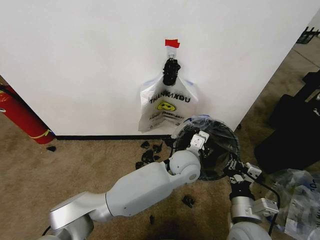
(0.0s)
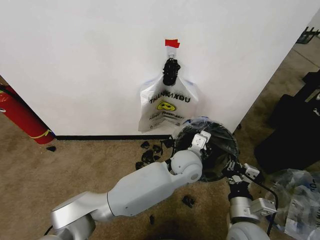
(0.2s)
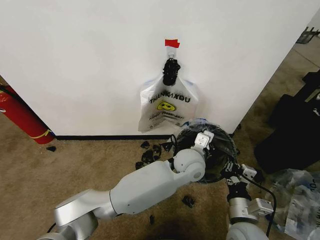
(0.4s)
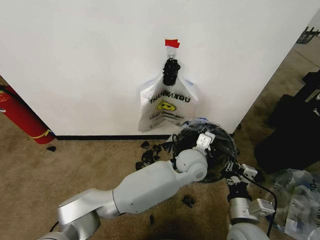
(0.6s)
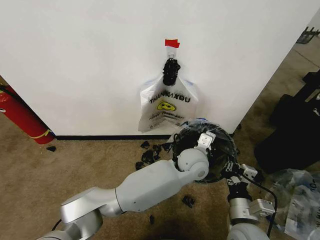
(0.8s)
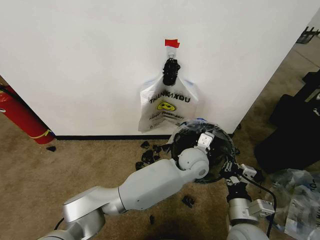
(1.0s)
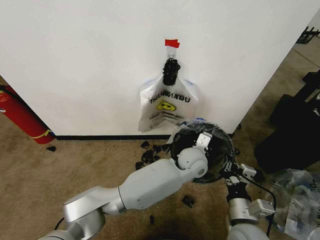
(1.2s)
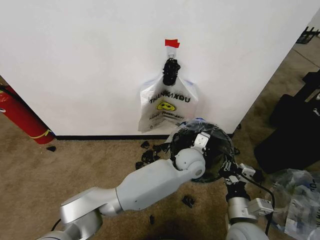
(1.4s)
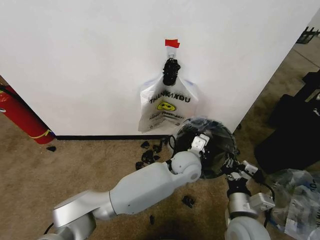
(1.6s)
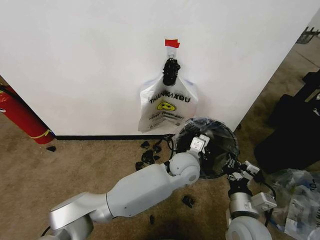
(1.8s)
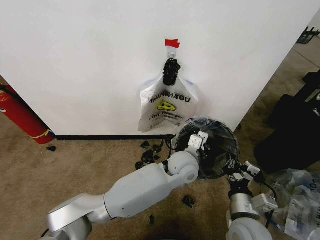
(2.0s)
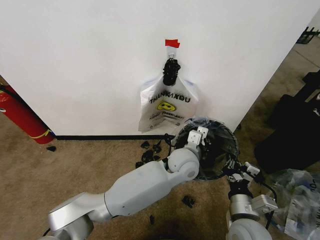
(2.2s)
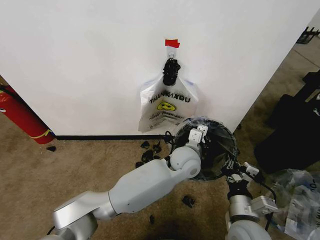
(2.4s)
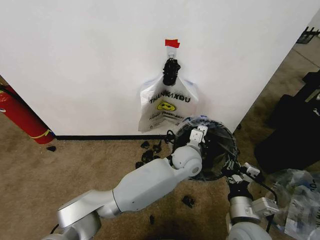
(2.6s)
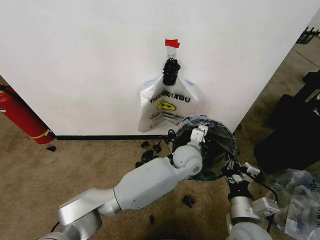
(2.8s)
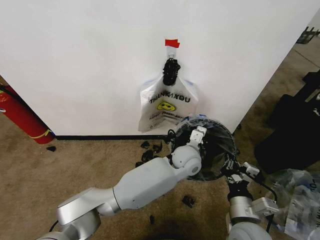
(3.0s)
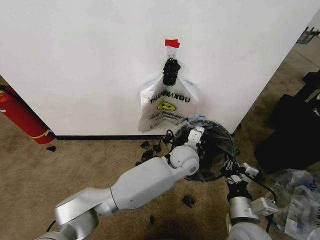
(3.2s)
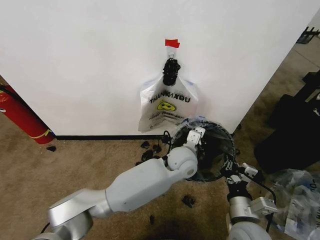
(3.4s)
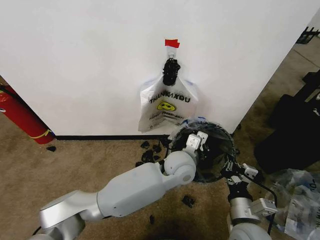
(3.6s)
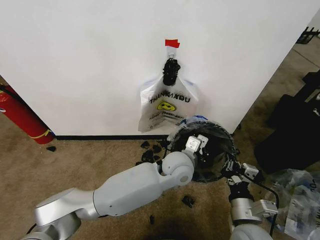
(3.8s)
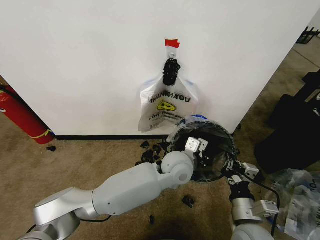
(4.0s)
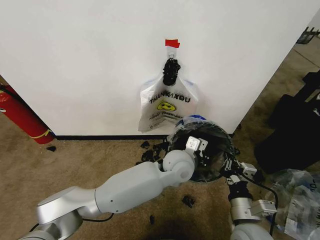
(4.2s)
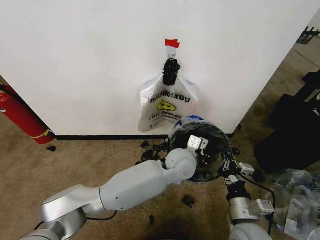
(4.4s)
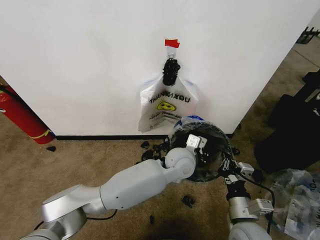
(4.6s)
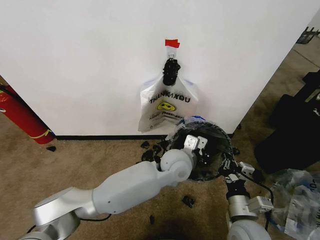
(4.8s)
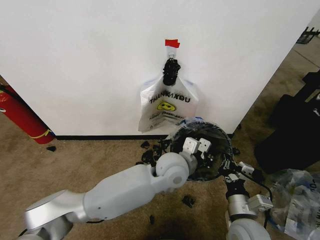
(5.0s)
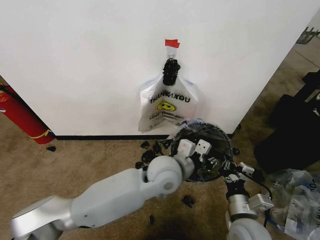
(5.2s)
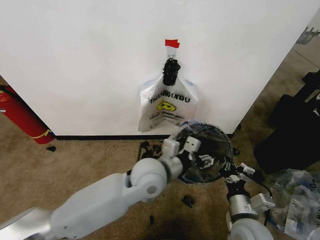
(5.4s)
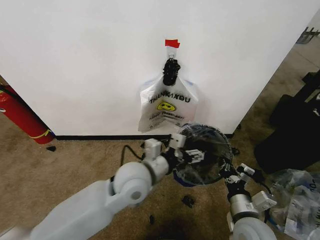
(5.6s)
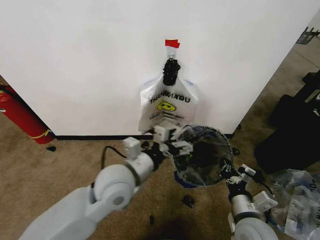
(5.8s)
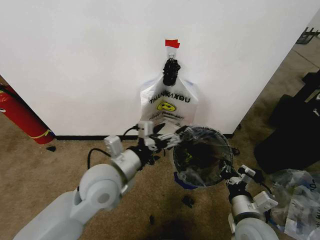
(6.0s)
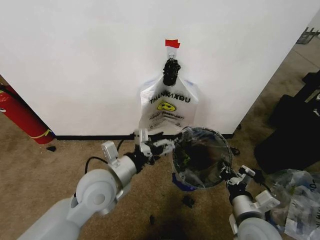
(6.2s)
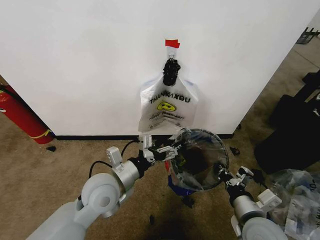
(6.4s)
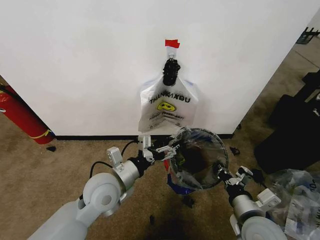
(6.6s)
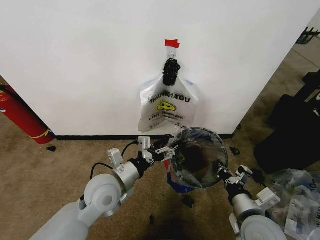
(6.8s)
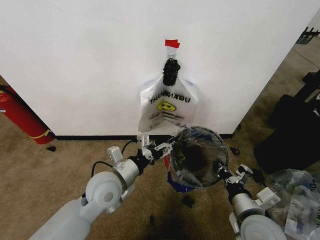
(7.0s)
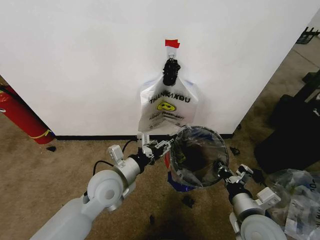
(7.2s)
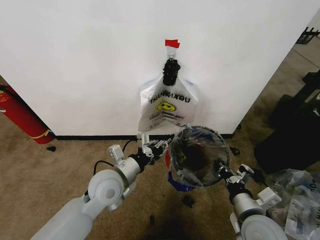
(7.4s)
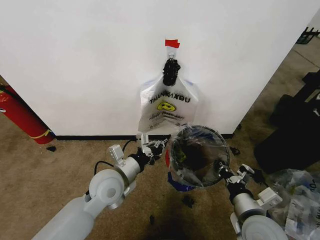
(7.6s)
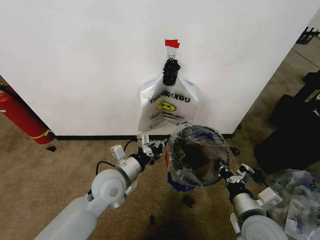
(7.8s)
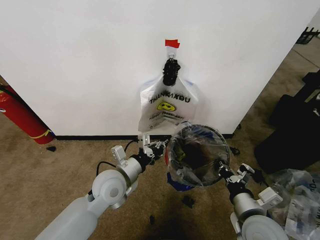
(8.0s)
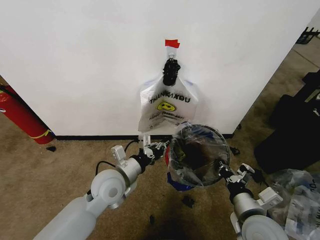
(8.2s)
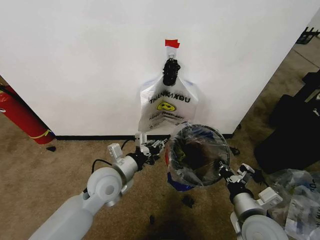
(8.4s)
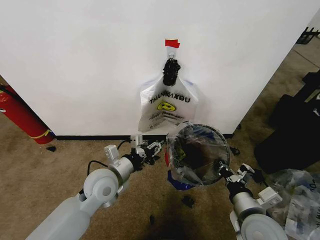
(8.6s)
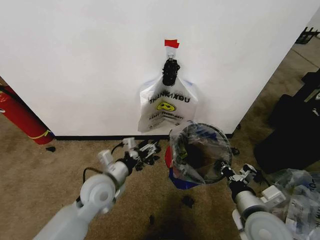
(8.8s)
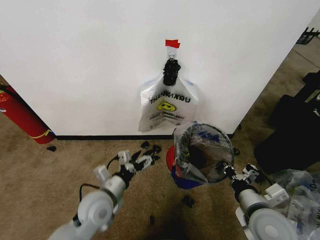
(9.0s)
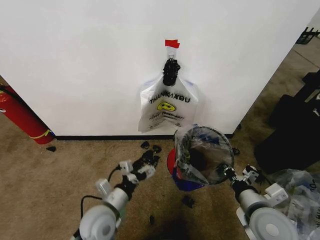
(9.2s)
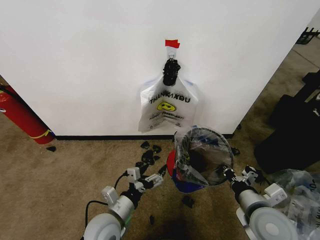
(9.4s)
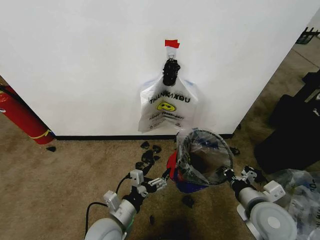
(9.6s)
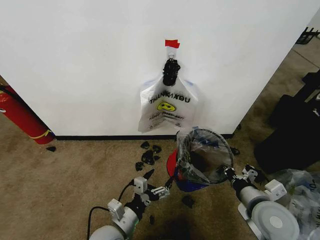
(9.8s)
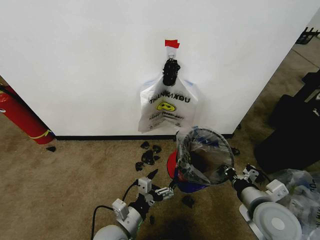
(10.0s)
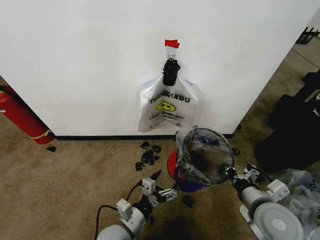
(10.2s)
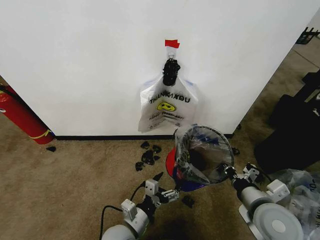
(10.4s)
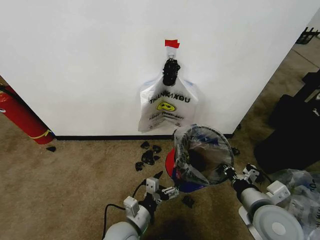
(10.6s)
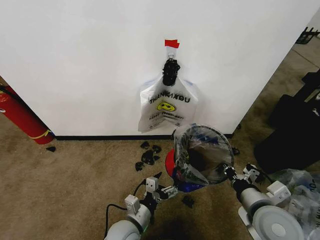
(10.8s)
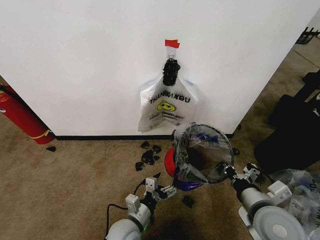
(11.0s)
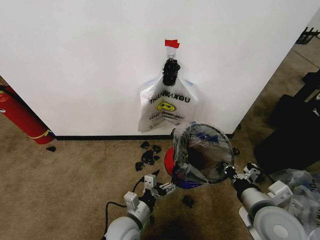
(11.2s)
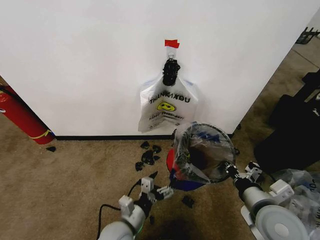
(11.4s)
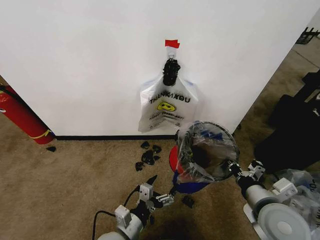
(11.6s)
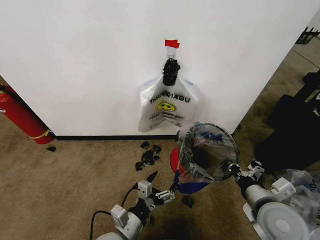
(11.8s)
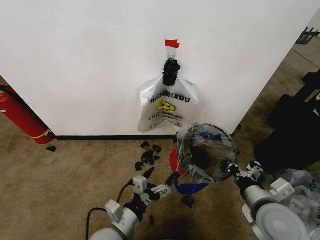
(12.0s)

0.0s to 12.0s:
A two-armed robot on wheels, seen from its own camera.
Task of the whole recording: Pick up the garbage bag from the wall and place it over the trash bin.
0.0s to 3.0s: The grippers make only small movements.
4.4s to 6.0s: The left gripper is displaced to the left and backward by roughly 25 cm, and opens its fingers.
6.0s to 7.6s: The left gripper heads downward, covering roughly 5 cm, and closes up.
7.6s to 9.0s: The left gripper is displaced downward by about 5 cm, and opens its fingers.
9.0s to 10.4s: The left gripper moves backward, to the right and downward, some 15 cm.
10.4s to 12.0s: The grippers move only a little.

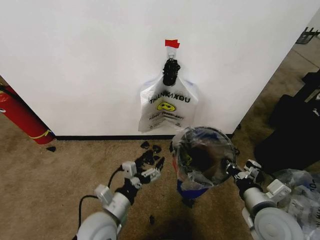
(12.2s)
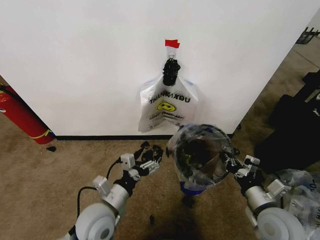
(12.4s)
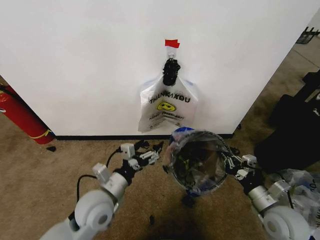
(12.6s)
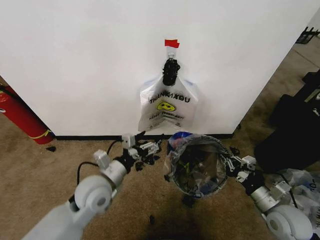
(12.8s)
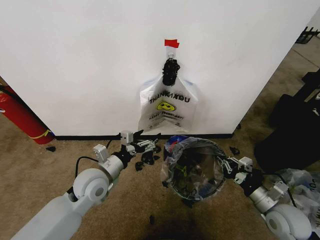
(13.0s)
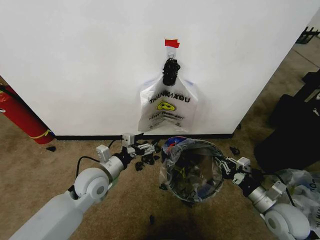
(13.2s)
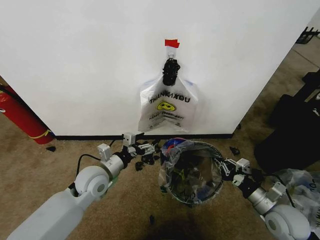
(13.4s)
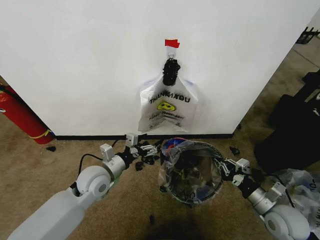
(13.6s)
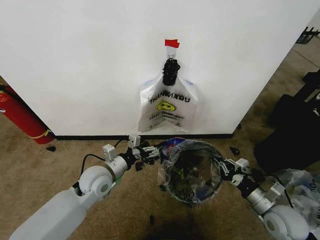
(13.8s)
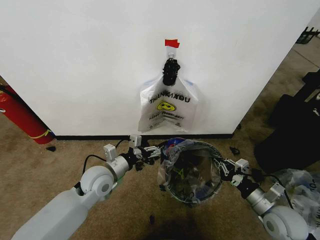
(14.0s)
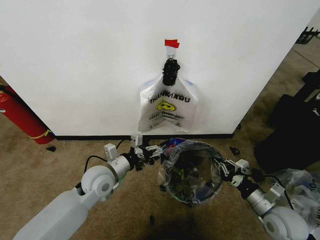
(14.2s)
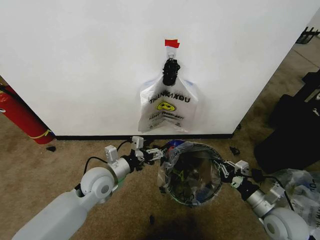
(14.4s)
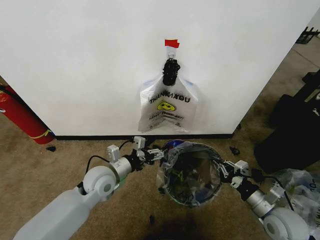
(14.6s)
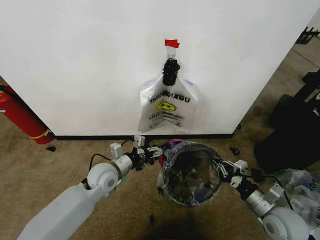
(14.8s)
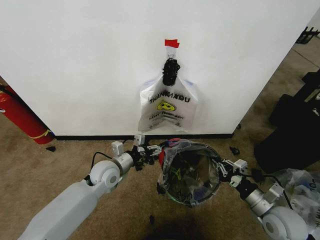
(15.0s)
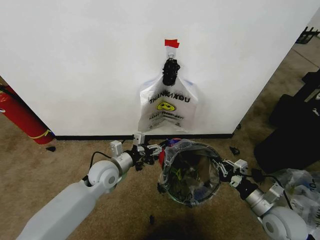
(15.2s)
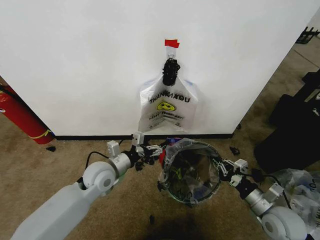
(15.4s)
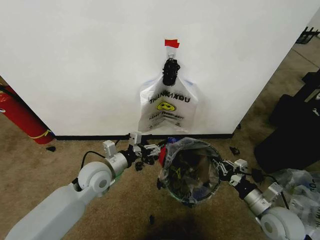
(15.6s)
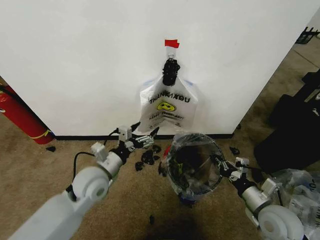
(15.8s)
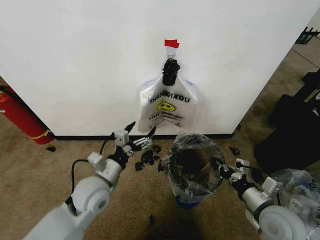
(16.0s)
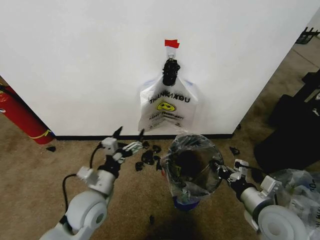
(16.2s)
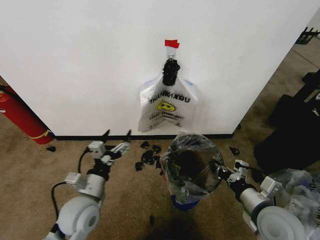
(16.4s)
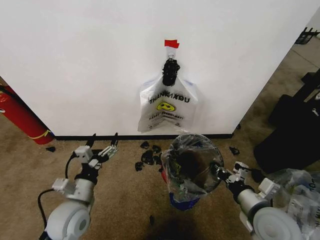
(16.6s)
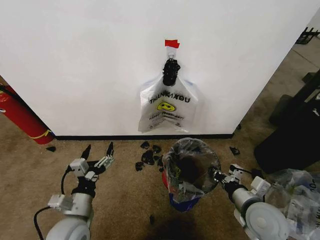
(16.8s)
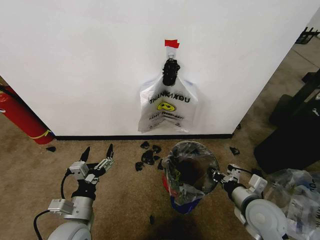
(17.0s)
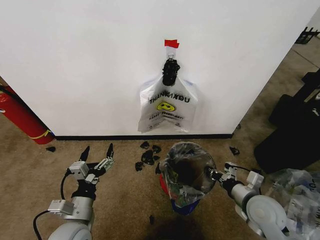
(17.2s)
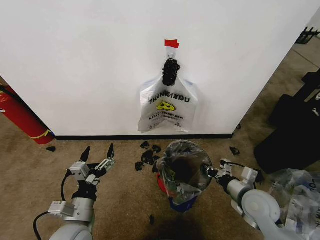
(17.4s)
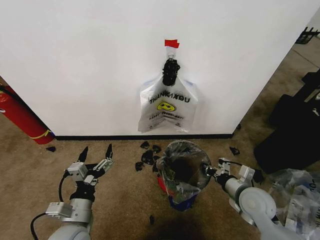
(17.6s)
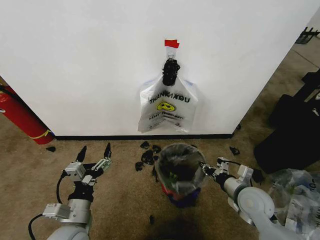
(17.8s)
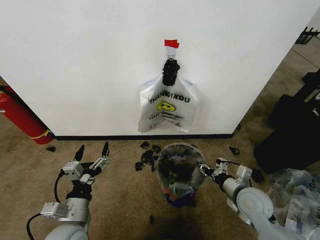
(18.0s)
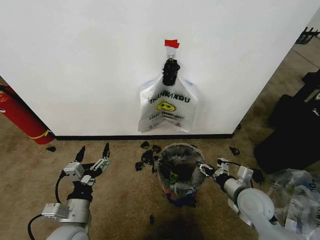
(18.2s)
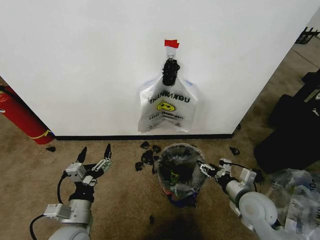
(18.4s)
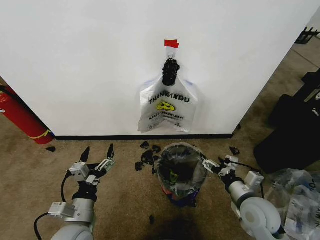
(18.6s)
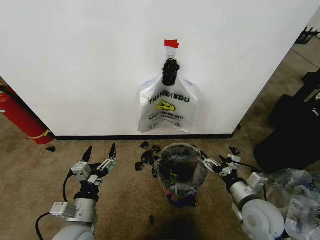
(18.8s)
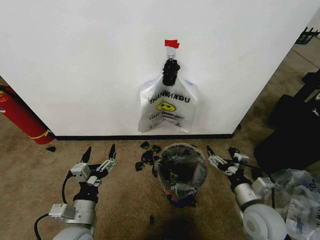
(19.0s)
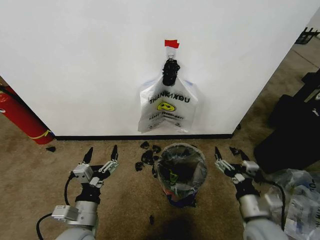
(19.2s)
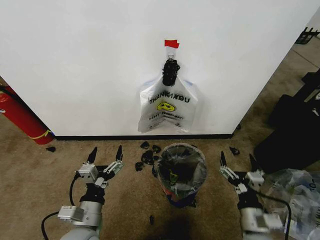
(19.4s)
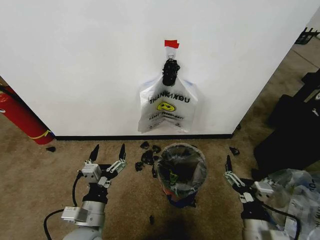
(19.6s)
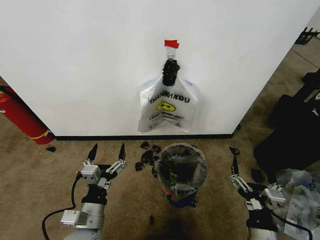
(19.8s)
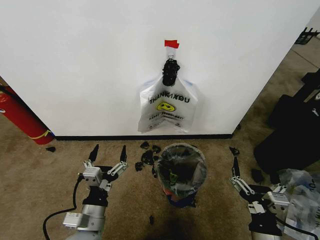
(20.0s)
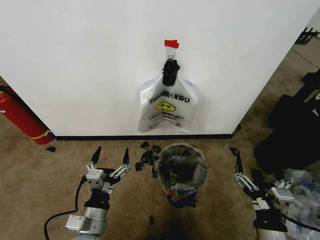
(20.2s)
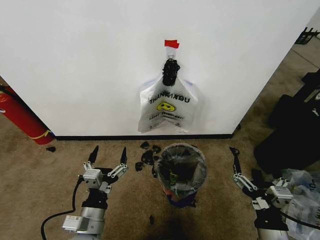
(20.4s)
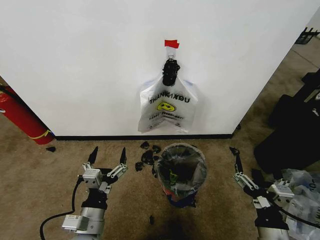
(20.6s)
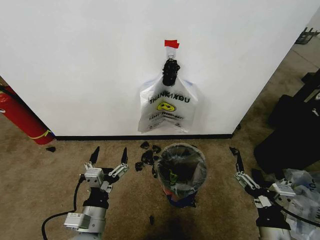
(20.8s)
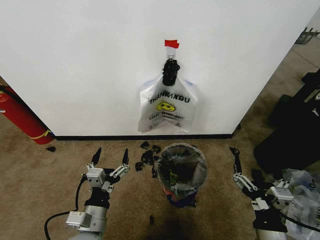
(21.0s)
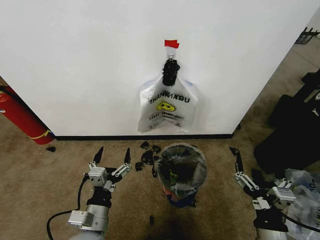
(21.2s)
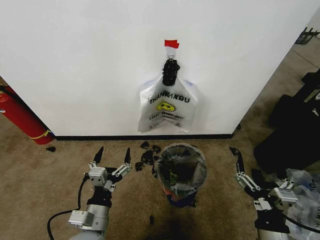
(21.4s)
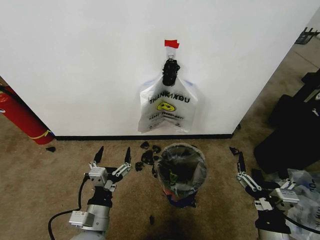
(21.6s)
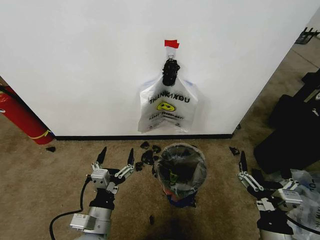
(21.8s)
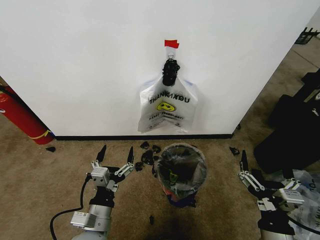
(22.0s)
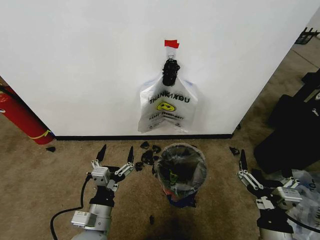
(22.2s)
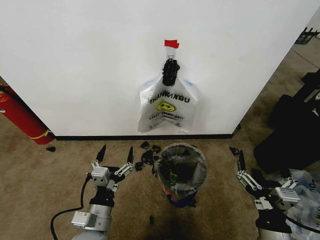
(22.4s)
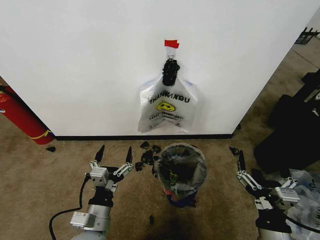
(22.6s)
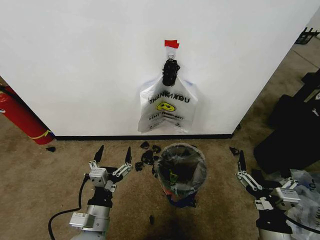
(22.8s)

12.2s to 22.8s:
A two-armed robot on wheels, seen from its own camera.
Task of the whole recording: Pick up the garbage bag from the wall and place it over the trash bin.
12.2s to 13.8s: The right gripper goes roughly 10 cm to the right and downward, while the left gripper heads forward, covering roughly 15 cm.
13.8s to 15.2s: The grippers move only a little.
15.2s to 16.8s: The left gripper heads backward, covering approximately 15 cm. The right gripper shifts some 5 cm to the left.
16.8s to 18.2s: The right gripper moves forward, approximately 5 cm, and opens up.
18.2s to 19.8s: The right gripper heads backward, covering approximately 15 cm, and opens its fingers.
19.8s to 21.2s: The grippers stay close to where they were, moving slightly.
21.2s to 22.8s: Both grippers stay put.
